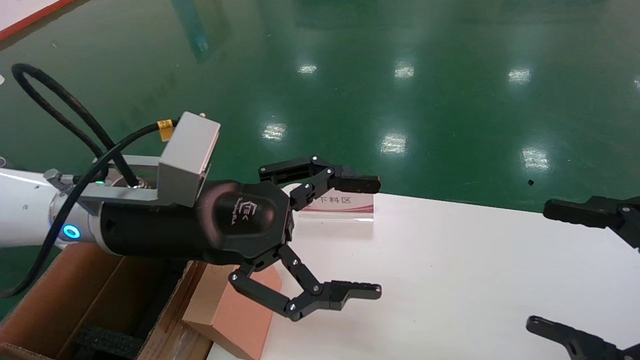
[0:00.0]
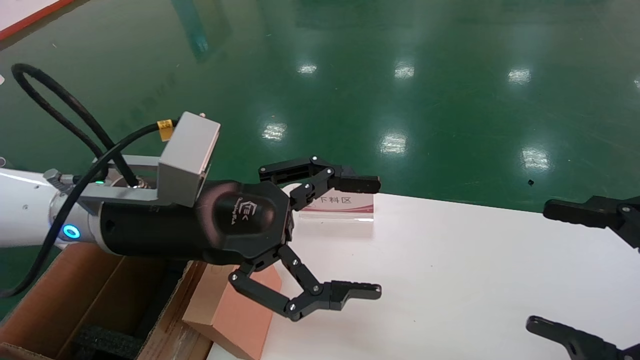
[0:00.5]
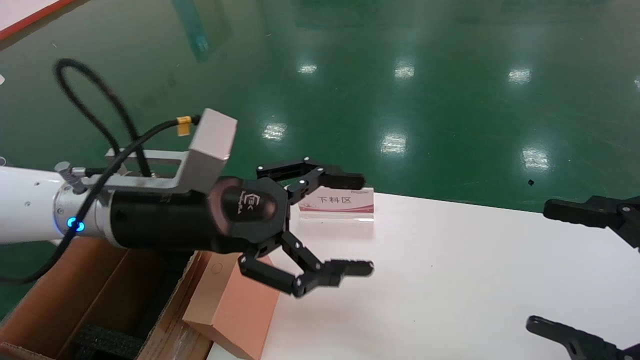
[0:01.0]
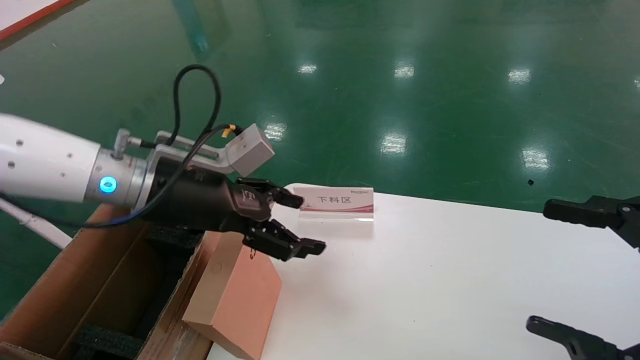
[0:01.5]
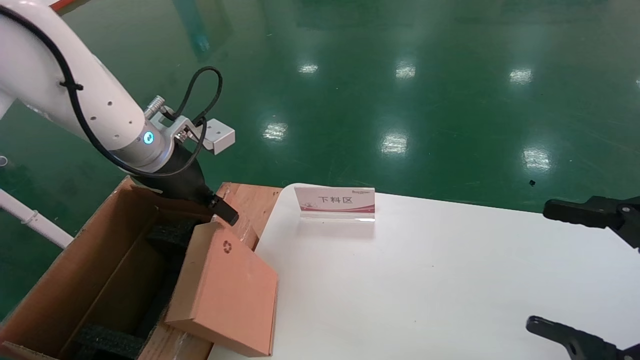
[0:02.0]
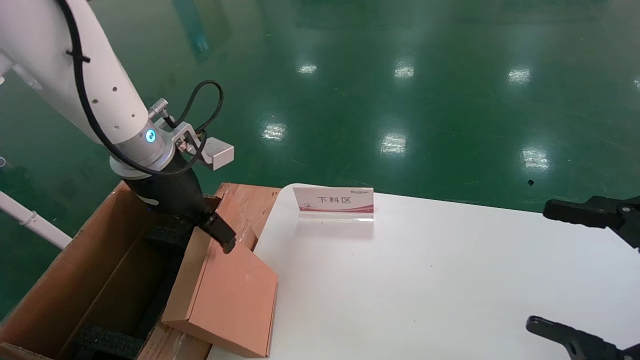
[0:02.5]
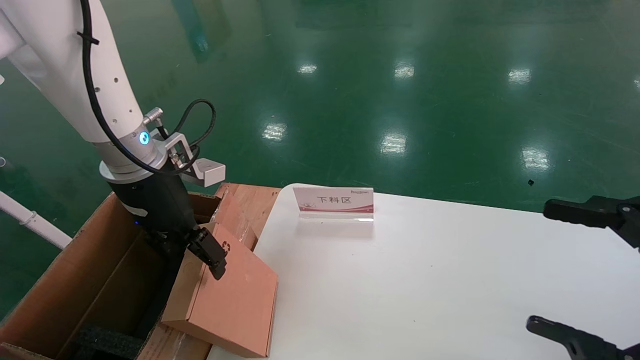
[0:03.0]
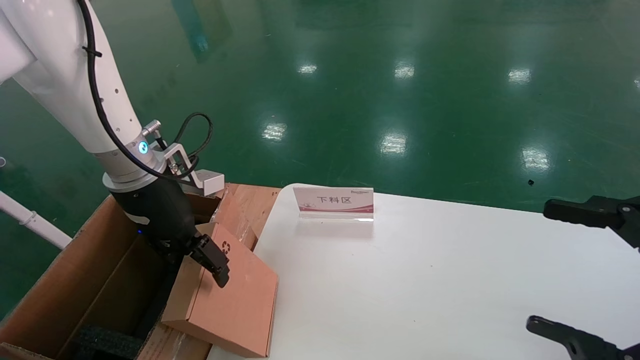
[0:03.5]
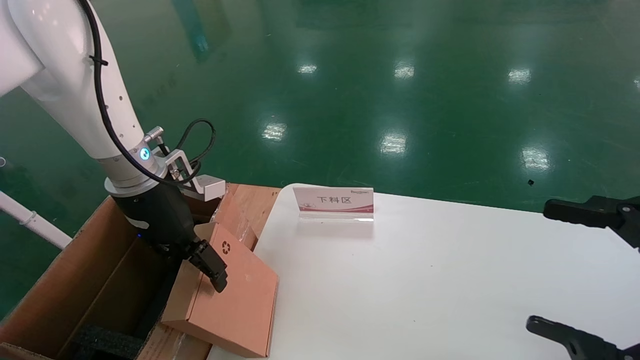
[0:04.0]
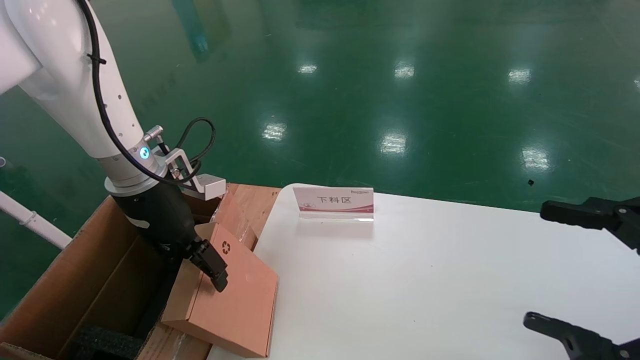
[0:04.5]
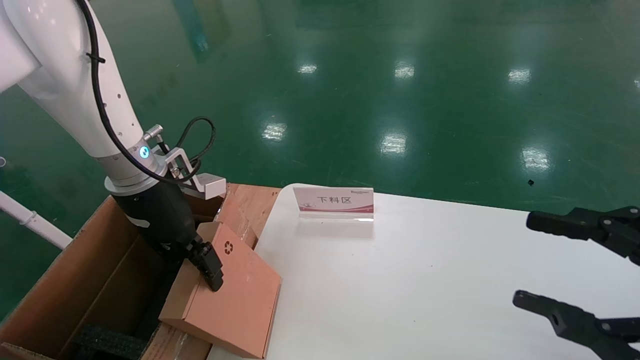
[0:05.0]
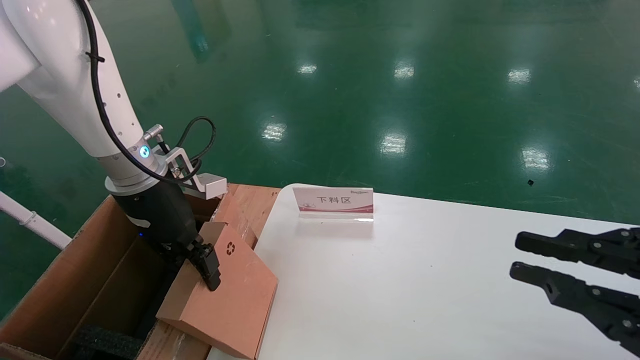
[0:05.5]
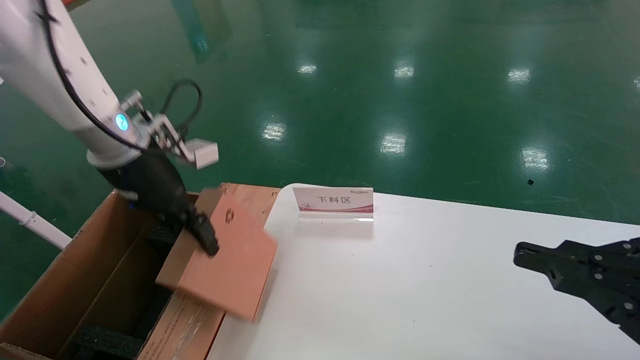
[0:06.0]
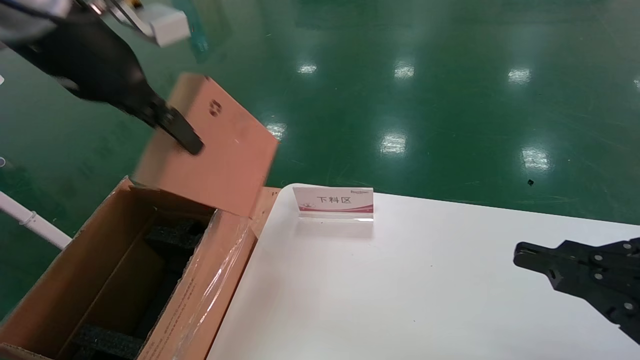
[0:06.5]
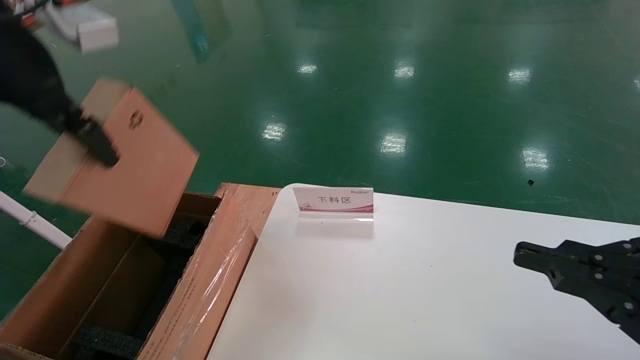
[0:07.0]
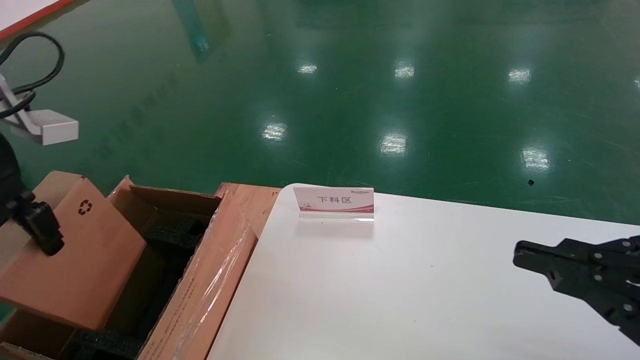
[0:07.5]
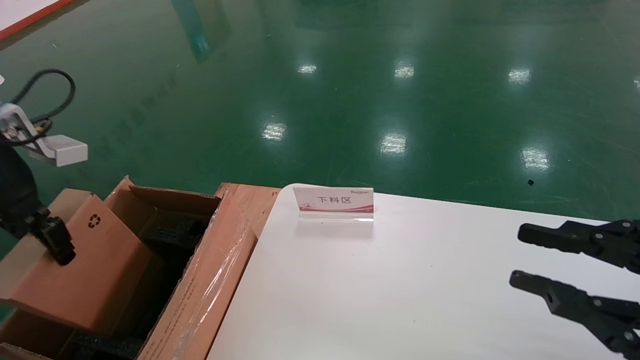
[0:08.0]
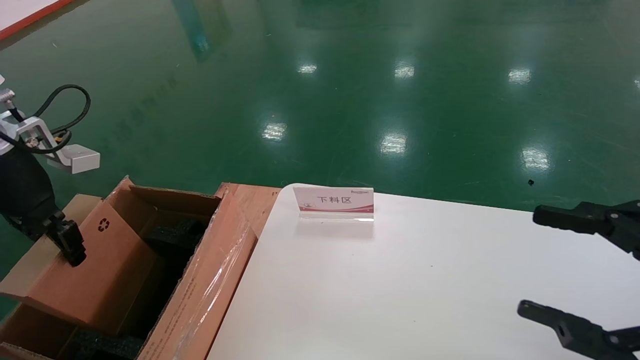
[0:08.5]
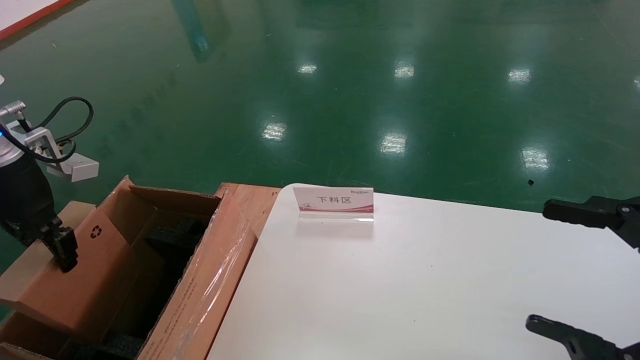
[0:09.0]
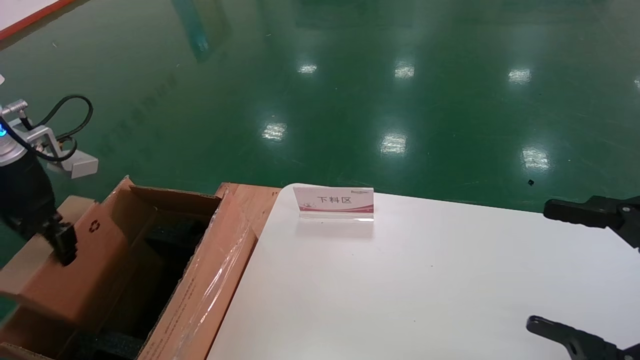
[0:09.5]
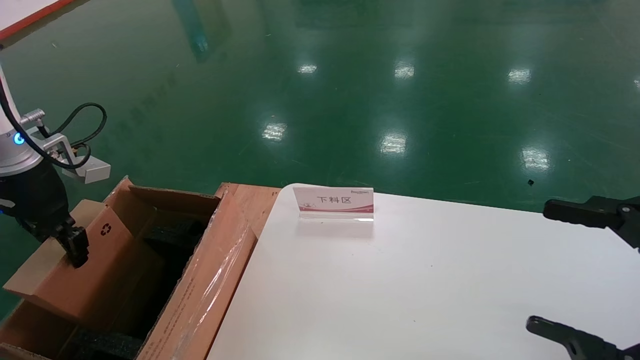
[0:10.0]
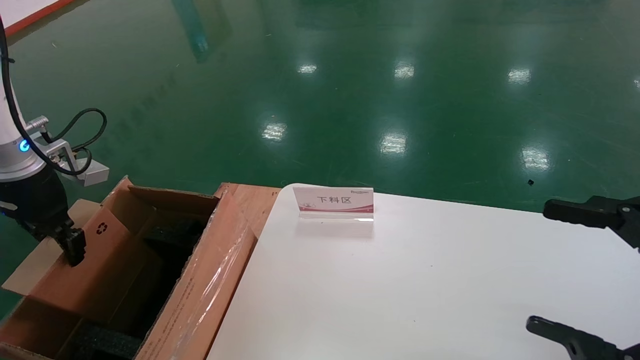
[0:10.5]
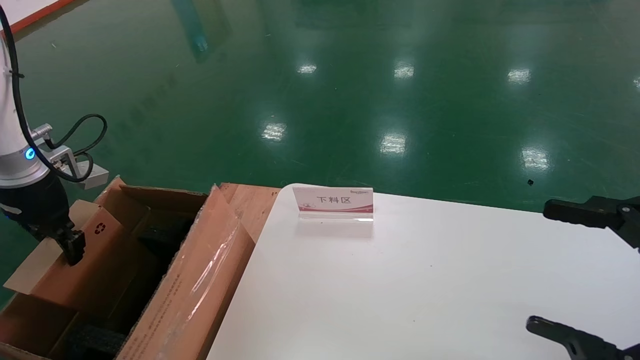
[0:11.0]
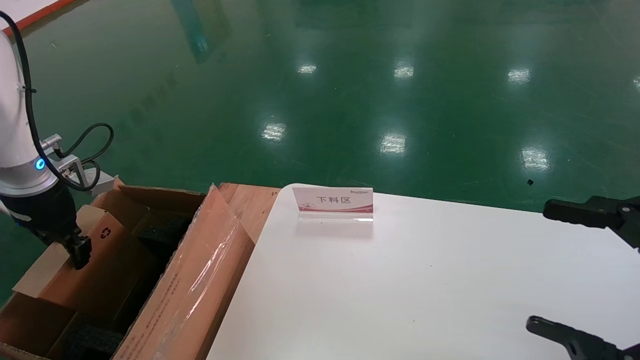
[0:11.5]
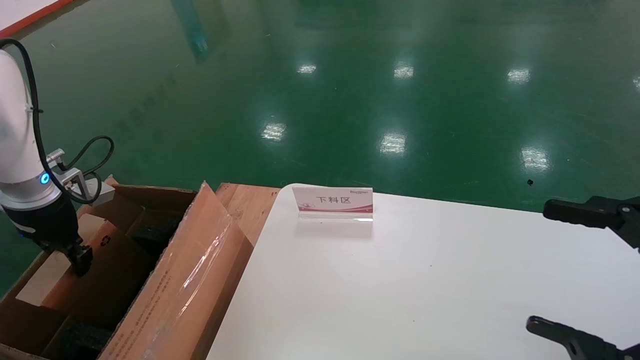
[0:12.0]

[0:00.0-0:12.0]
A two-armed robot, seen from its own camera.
Task of the whole recording: pick up the small cardboard box and load it into the large cardboard box.
Step, 0:01.0 to 0:05.0: Pick up the mouse and power cord box.
0:00.0 to 0:02.0: The left gripper is displaced forward and to the left by roughly 15 cm.
0:04.0 to 0:06.0: The left gripper goes roughly 5 cm upward, and closes. Meanwhile the right gripper closes its fingers.
0:06.0 to 0:08.0: The left gripper is displaced to the left and backward by some 15 cm.
0:08.0 to 0:10.0: The right gripper opens up. Meanwhile the left gripper moves forward, roughly 5 cm.
0:10.0 to 0:12.0: The left gripper travels downward by approximately 5 cm.

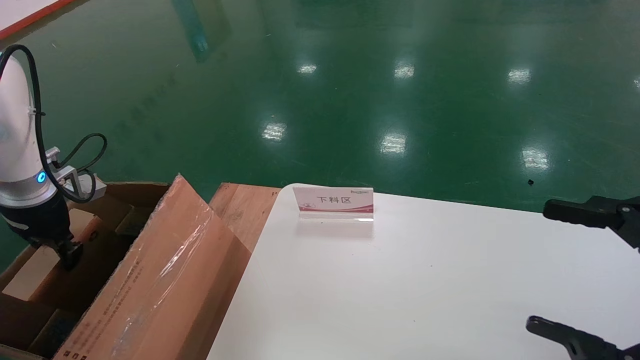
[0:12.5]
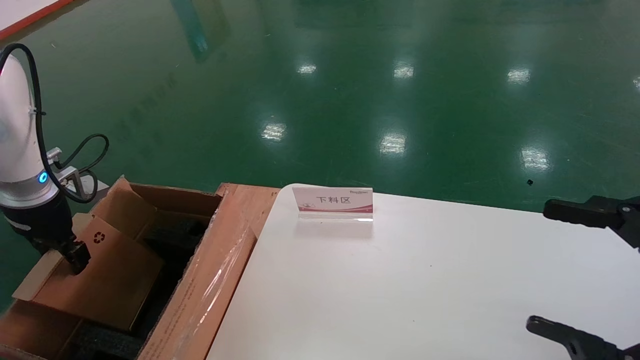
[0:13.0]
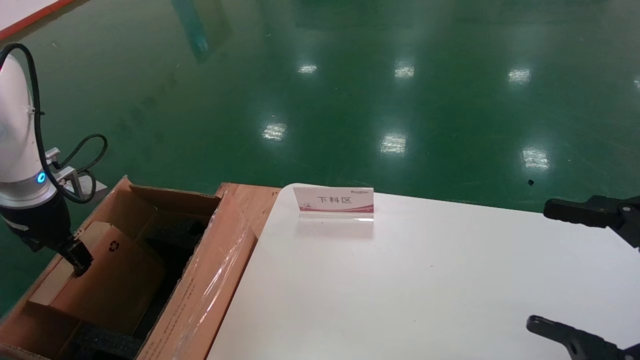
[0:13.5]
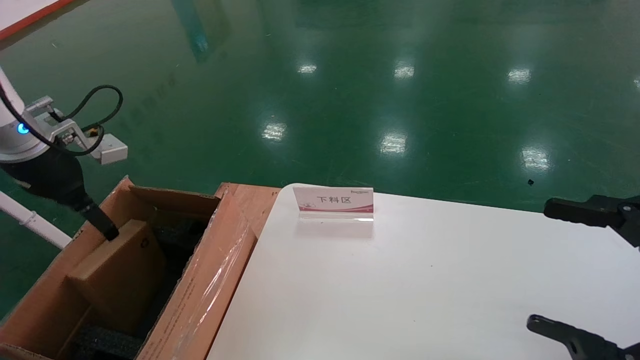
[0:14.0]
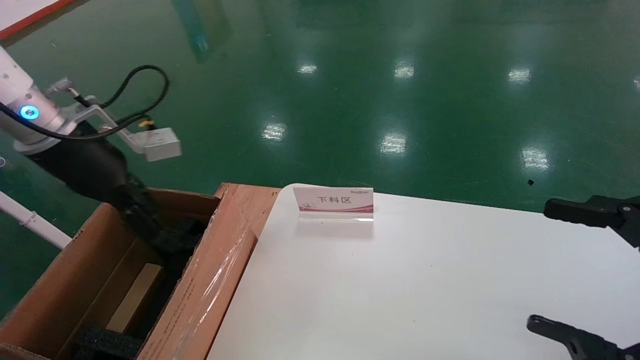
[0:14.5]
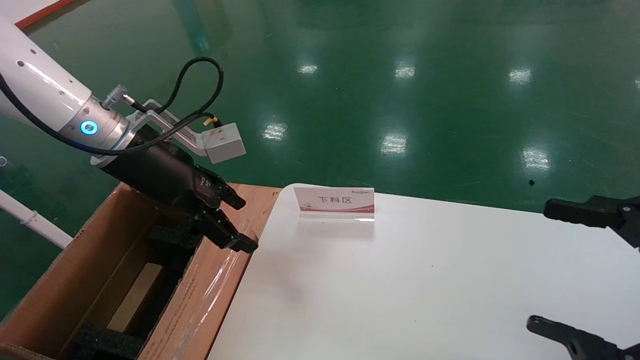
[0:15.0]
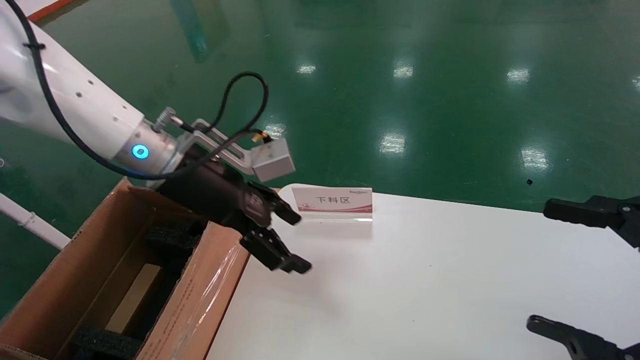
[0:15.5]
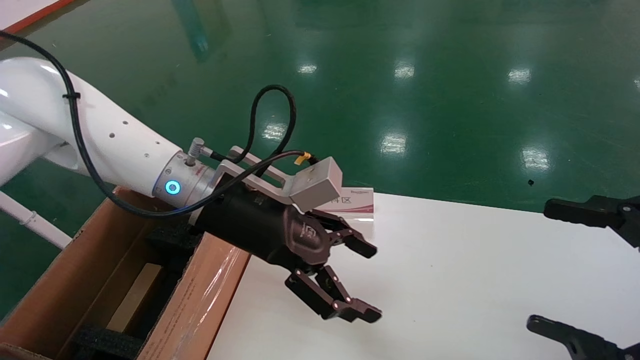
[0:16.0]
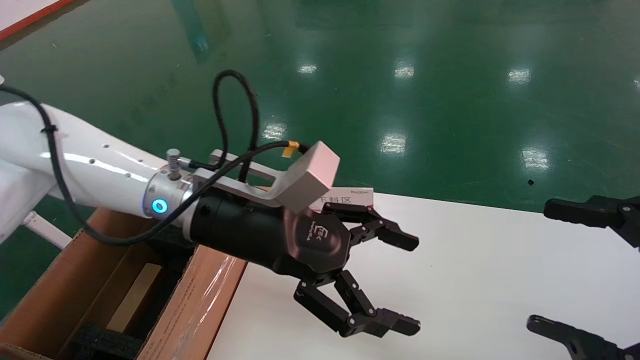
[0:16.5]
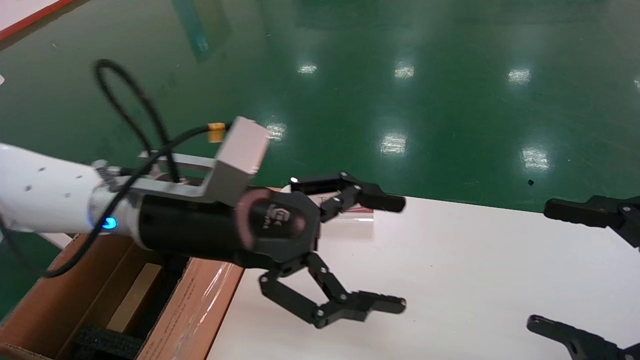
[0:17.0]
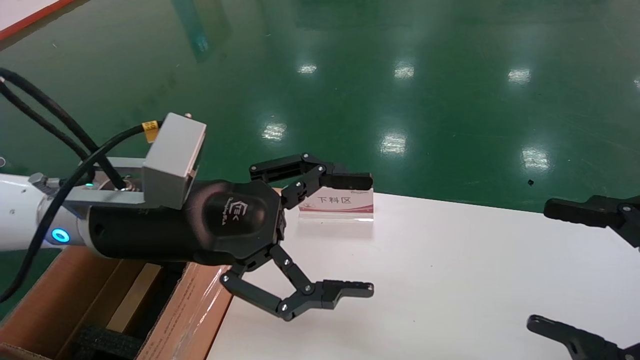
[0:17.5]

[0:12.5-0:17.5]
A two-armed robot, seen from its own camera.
Task of the whole recording: pick up the small cardboard box and load it into the large cardboard box.
0:12.5 to 0:15.0: The left gripper heads to the right and upward, covering some 20 cm, and opens up.
0:15.0 to 0:17.5: The left gripper is displaced backward and to the right by roughly 10 cm.
